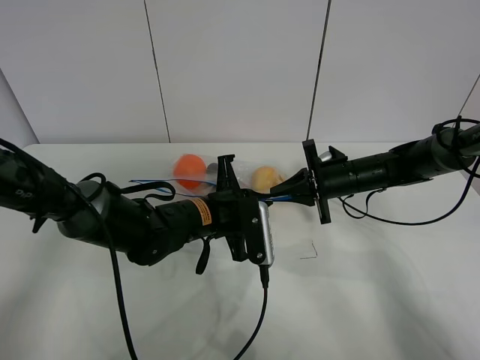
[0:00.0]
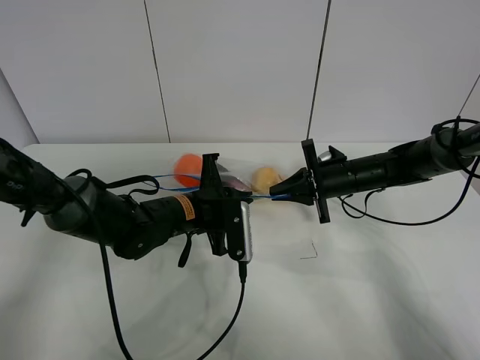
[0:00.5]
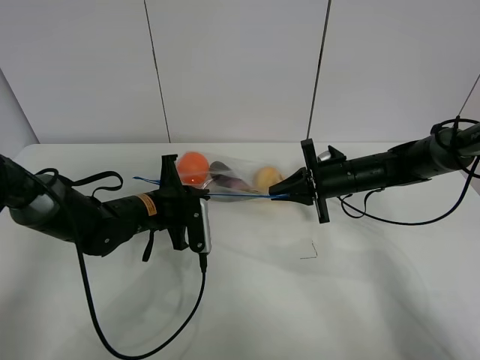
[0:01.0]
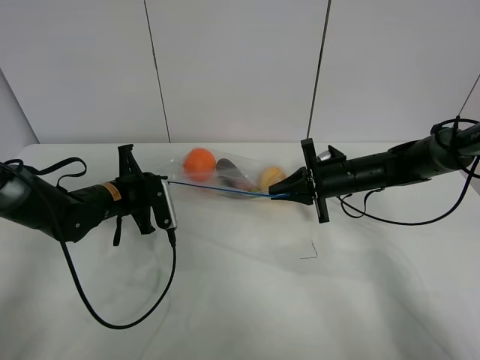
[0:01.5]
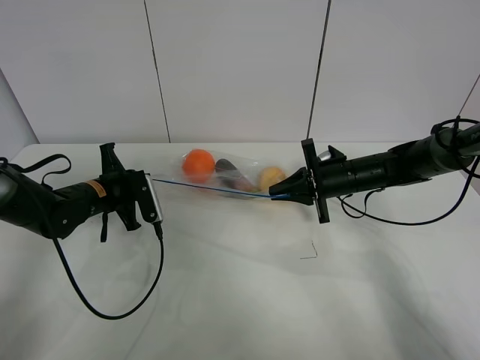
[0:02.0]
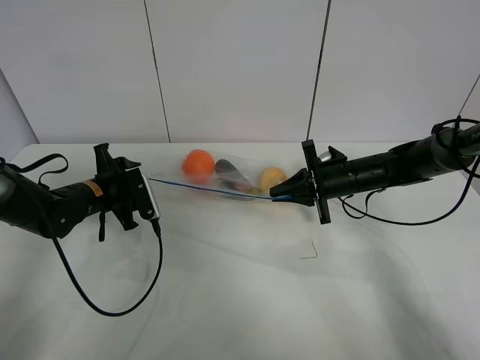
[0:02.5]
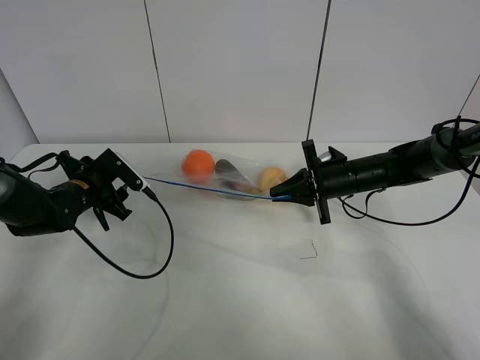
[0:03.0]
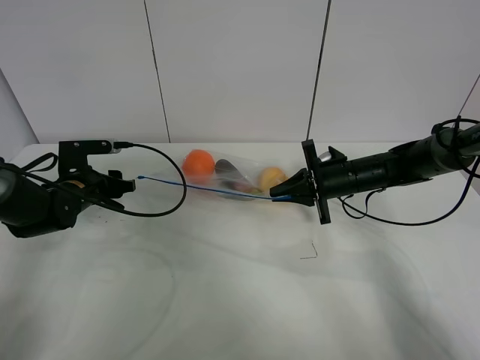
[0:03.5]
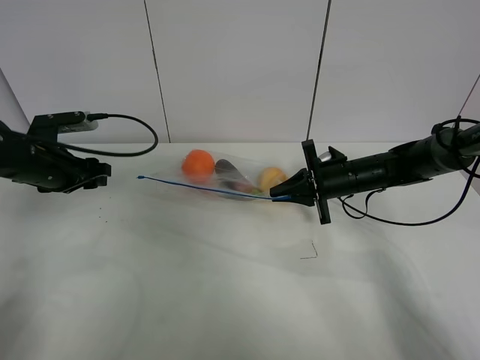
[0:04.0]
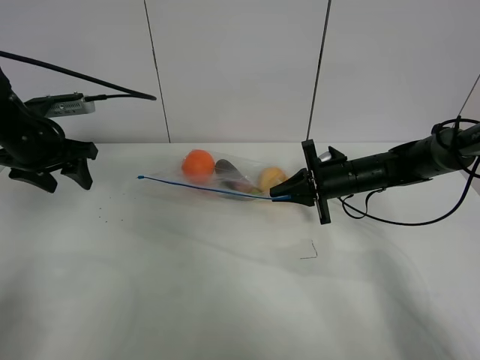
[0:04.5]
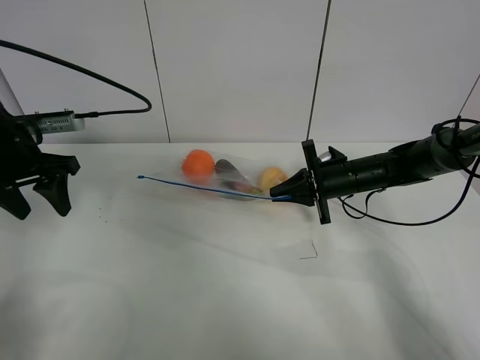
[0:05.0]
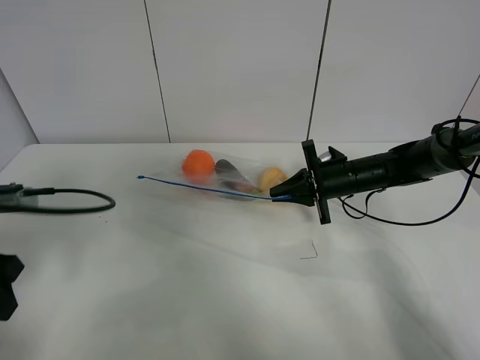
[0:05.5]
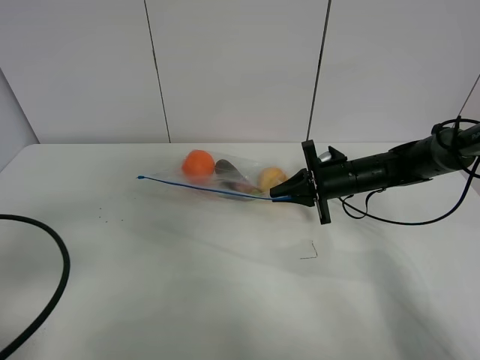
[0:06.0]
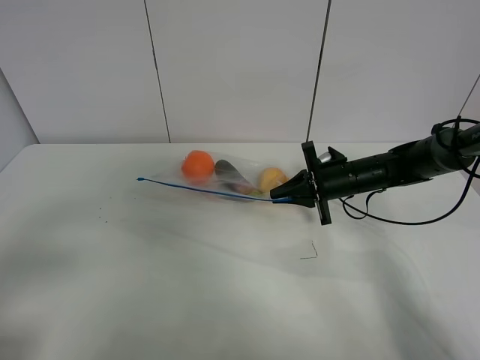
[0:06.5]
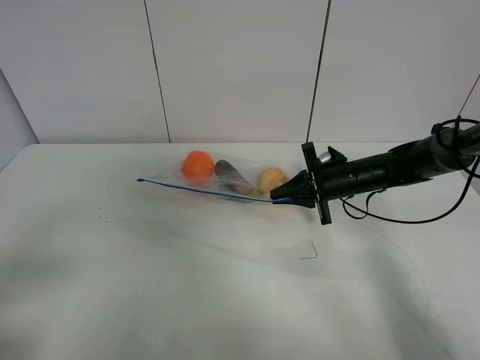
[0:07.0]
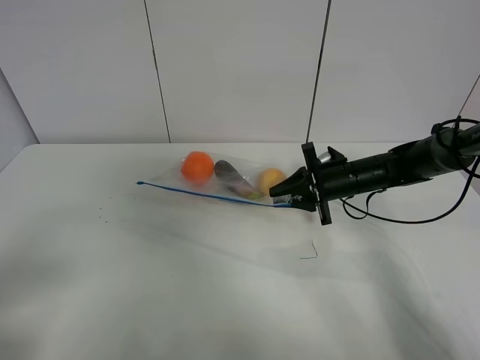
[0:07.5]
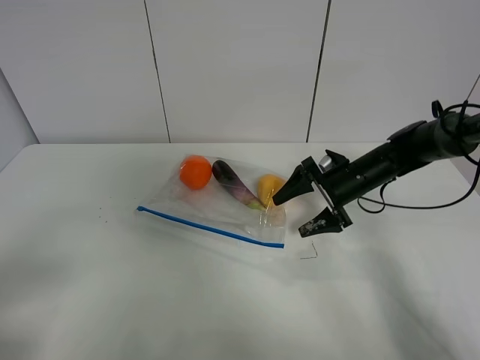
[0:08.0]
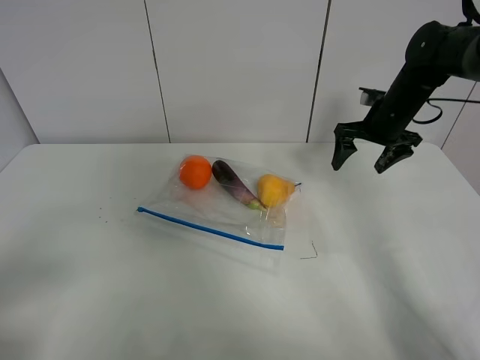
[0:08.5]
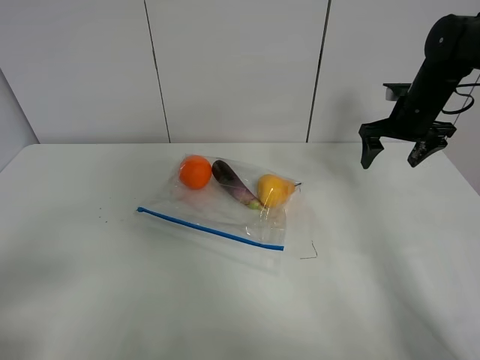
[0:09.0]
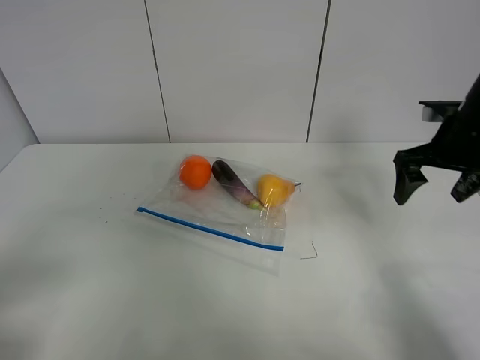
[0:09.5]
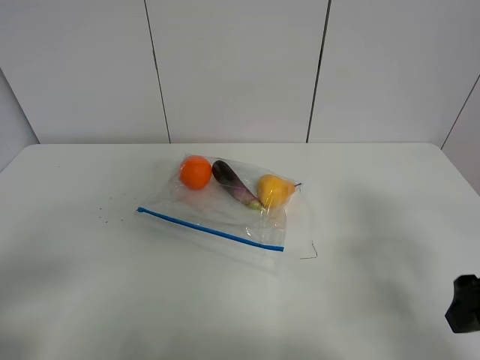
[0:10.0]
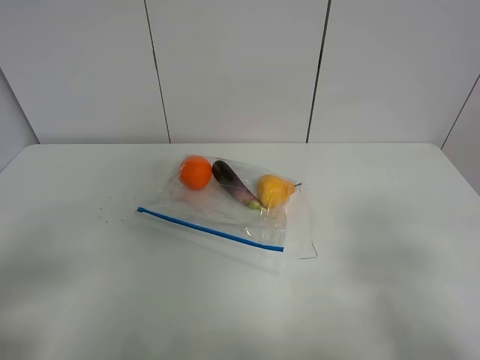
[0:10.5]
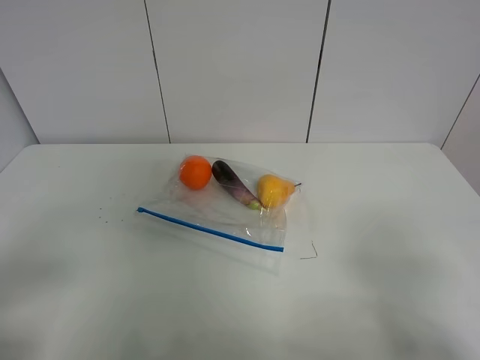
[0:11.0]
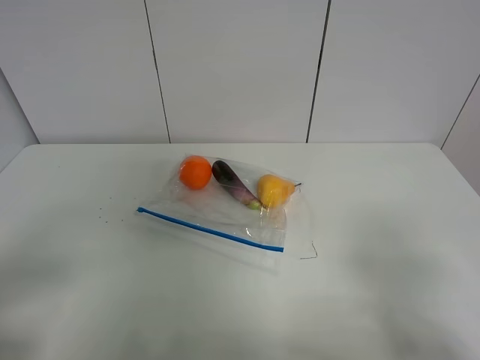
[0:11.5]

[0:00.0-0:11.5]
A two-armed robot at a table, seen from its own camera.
Step, 0.0 to 2.5 s: Pull the fruit bag with left gripper.
0.0 to 2.0 s: The left gripper shifts about 20 cm to the left.
2.0 to 4.0 s: The left gripper heads upward and to the left, covering roughly 10 cm, and opens its fingers.
4.0 to 6.0 s: The left gripper goes roughly 25 cm backward.
6.0 to 7.5 s: The left gripper shifts approximately 10 cm backward.
7.5 to 9.5 s: The right gripper shifts approximately 20 cm upward, to the right and backward, and opens up.
9.5 to 11.5 s: The right gripper goes roughly 30 cm backward.

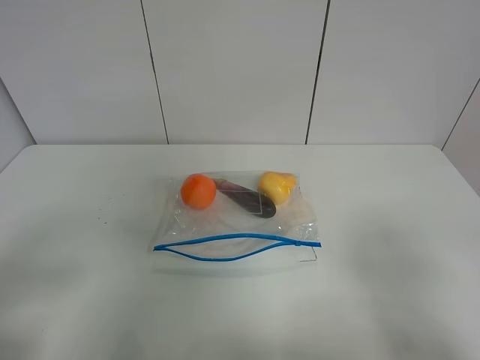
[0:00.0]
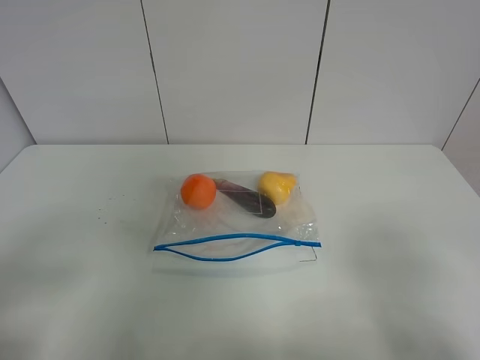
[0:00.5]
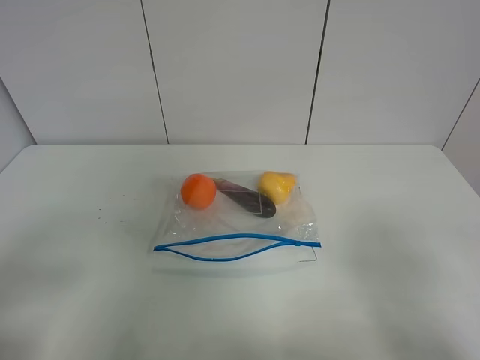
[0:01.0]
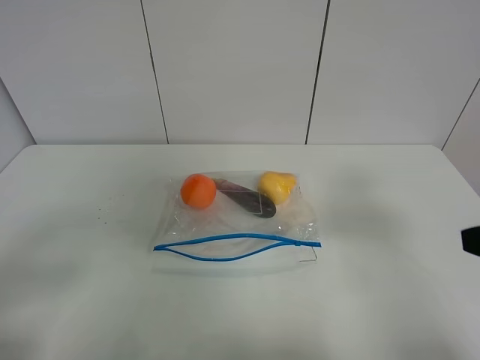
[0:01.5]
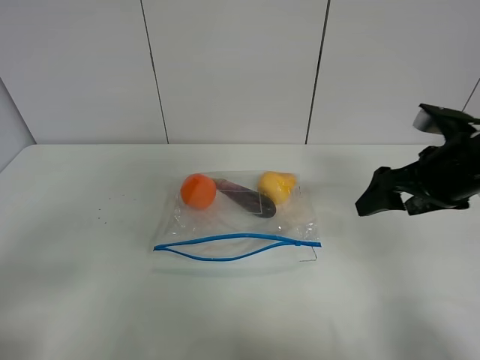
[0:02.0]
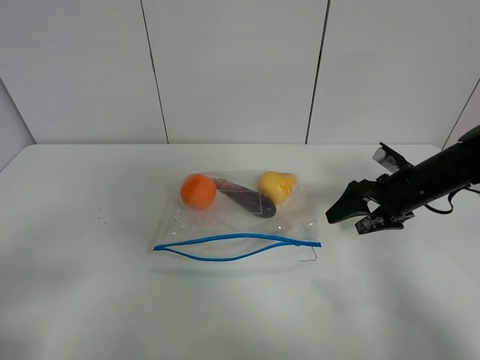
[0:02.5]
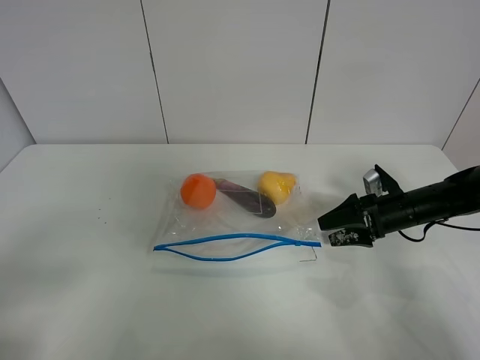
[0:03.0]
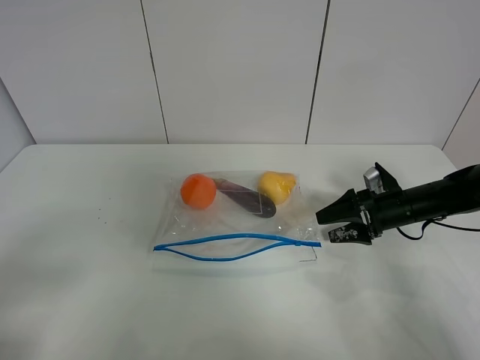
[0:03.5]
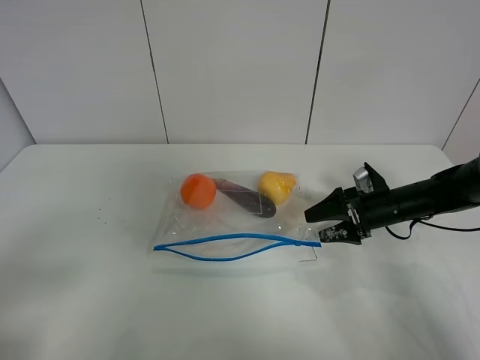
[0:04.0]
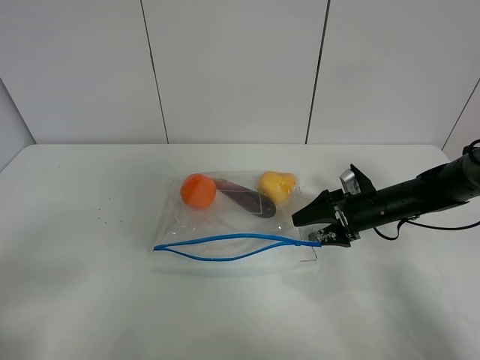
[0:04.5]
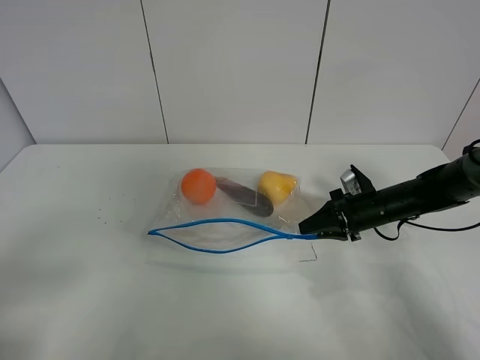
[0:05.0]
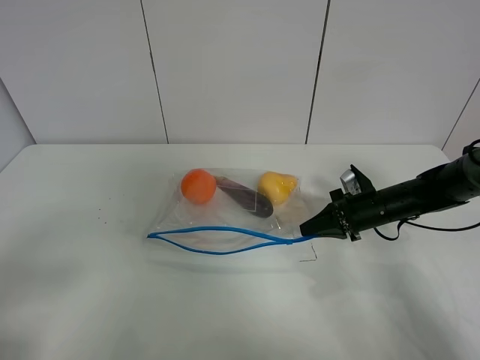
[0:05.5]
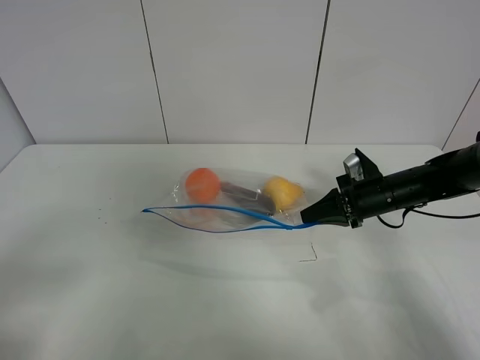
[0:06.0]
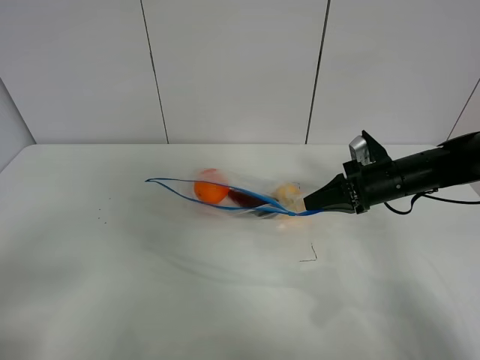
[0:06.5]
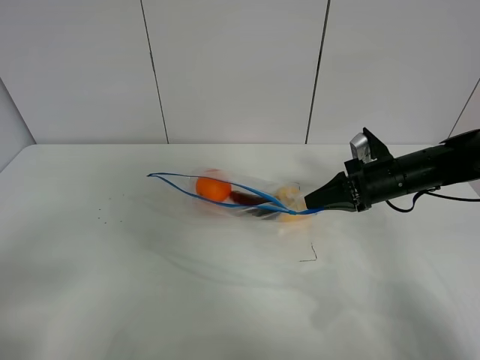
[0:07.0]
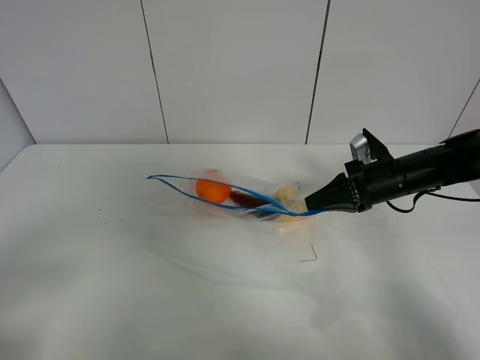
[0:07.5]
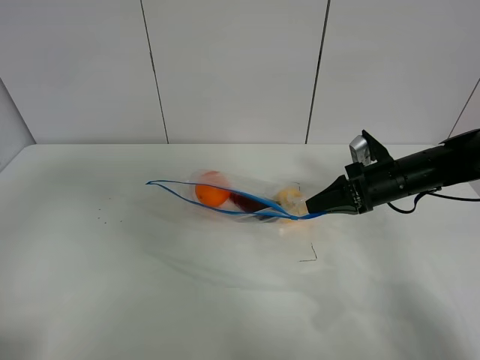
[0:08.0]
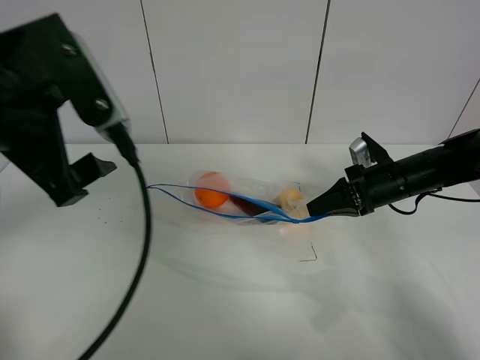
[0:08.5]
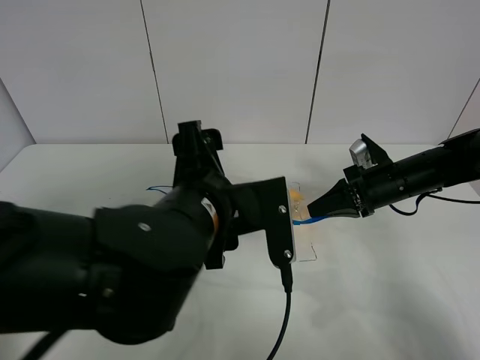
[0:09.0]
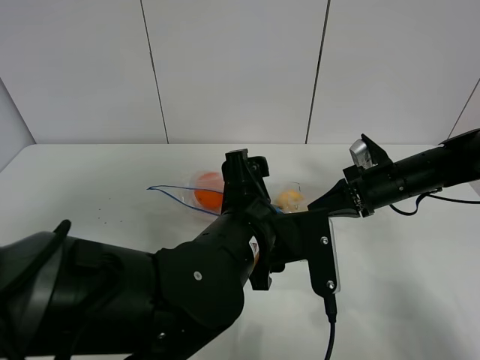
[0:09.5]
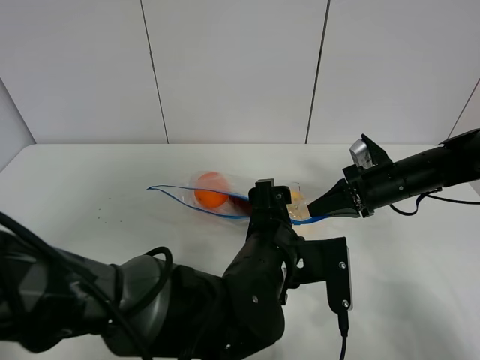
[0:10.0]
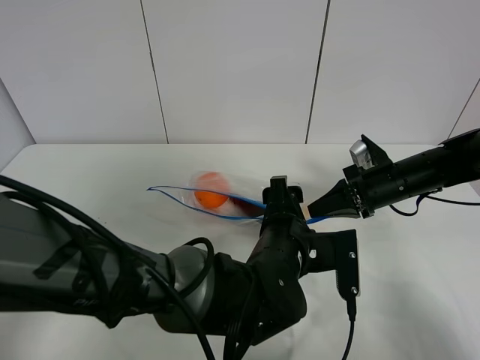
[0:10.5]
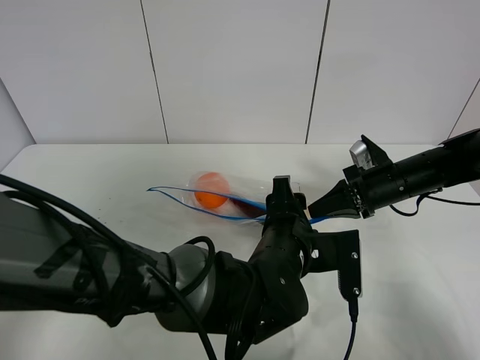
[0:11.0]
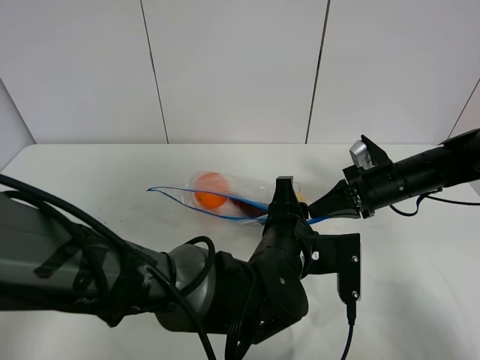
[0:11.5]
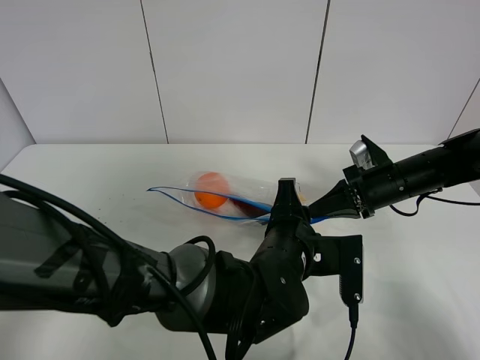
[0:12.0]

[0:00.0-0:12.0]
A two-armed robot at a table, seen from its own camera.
Step, 0.0 to 5.0 s: Grasp the fruit bag with right gripper.
Step, 5.5 to 7.0 s: Lift the fruit bag with your right gripper.
0.0 to 2.0 s: The right gripper moves forward, about 25 cm.
2.0 to 4.0 s: The right gripper goes roughly 20 cm downward and forward.
4.0 to 6.0 s: The right gripper closes its fingers.
6.0 to 8.0 s: The left gripper shifts approximately 15 cm forward and upward.
8.0 to 10.0 s: The left gripper shifts approximately 40 cm to the right and downward.
10.0 to 12.0 s: The left gripper closes up.

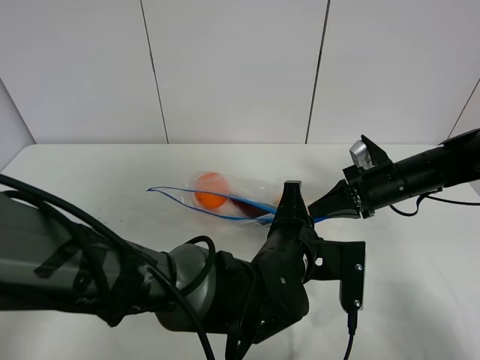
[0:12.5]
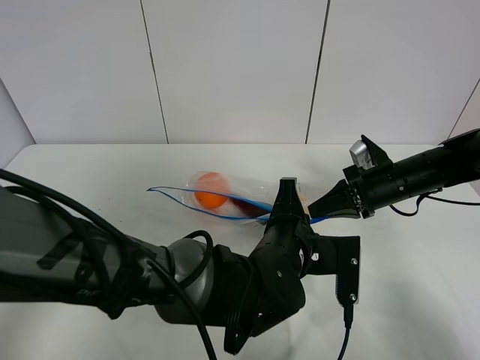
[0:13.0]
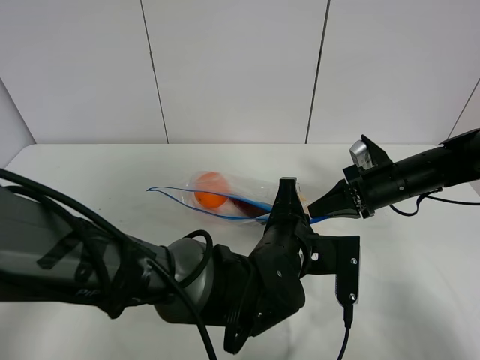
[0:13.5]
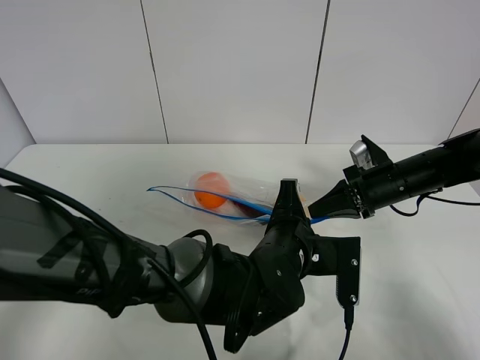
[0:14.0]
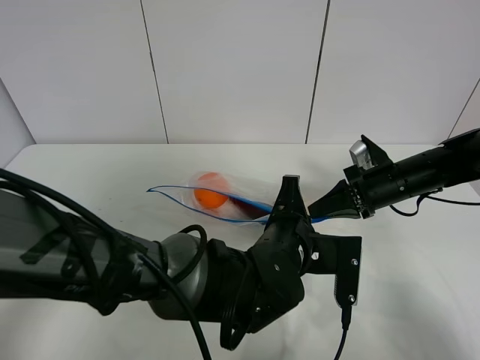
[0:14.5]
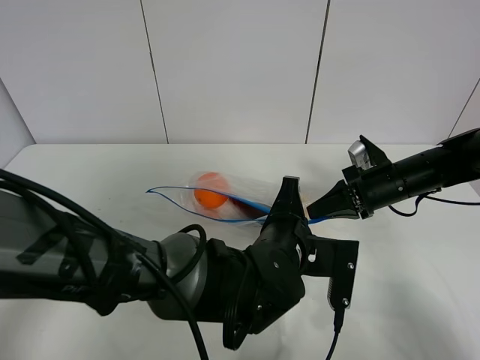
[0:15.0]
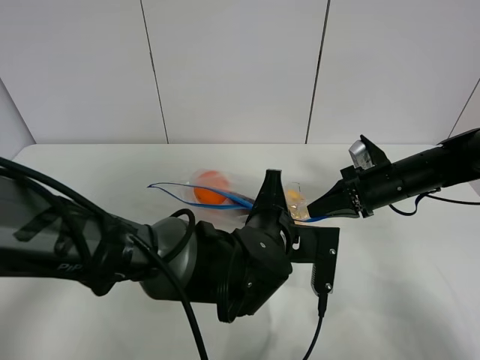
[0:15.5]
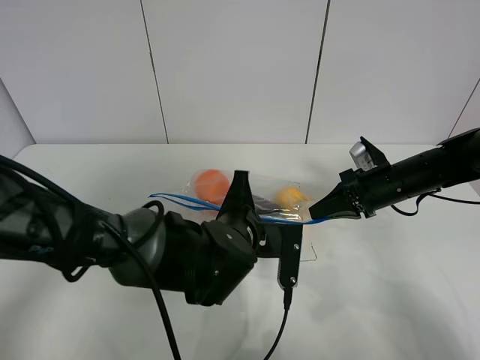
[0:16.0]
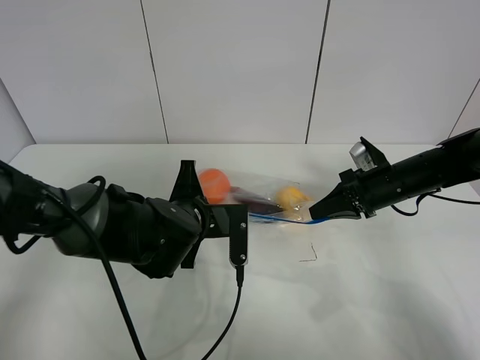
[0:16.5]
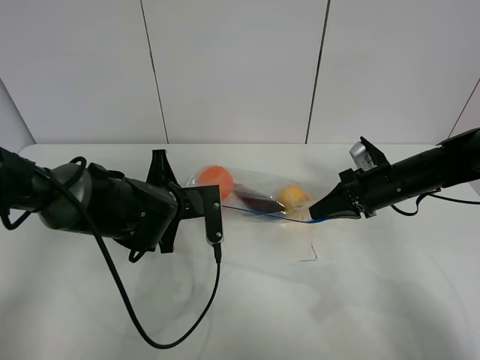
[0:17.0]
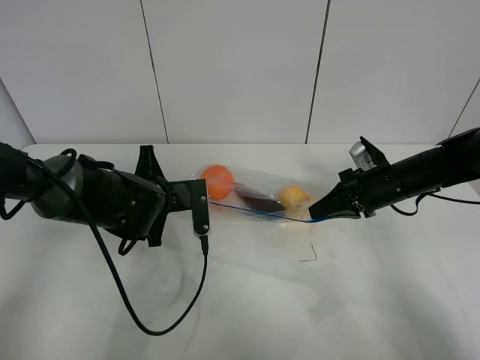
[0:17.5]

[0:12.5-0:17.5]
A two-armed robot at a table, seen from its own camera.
12.5 to 15.0 s: The grippers make only small movements.
15.0 to 17.5 s: The left gripper travels to the left and forward by approximately 20 cm.
